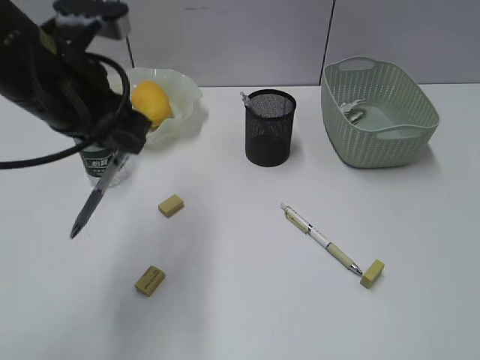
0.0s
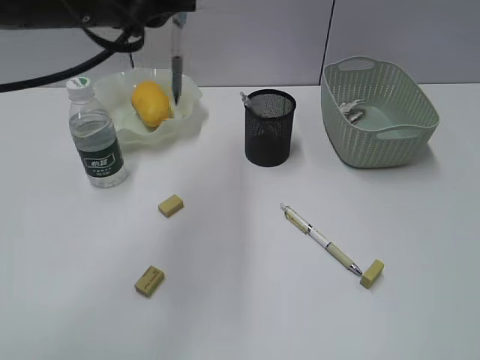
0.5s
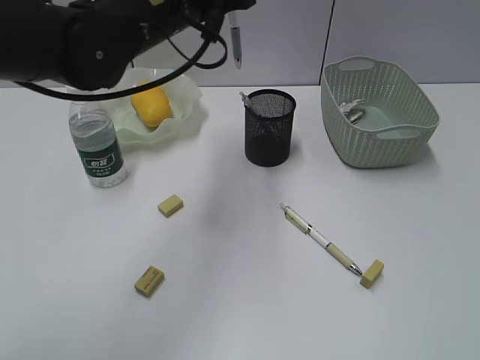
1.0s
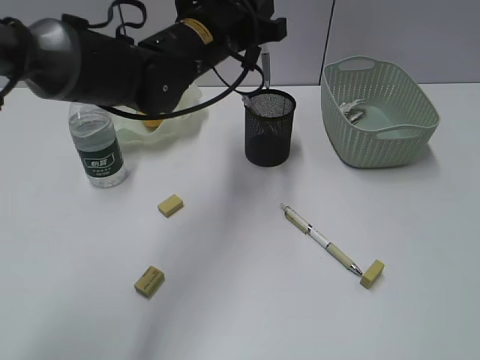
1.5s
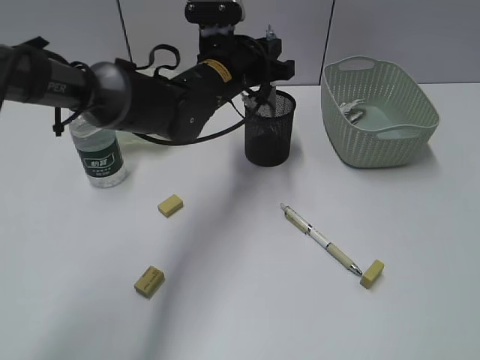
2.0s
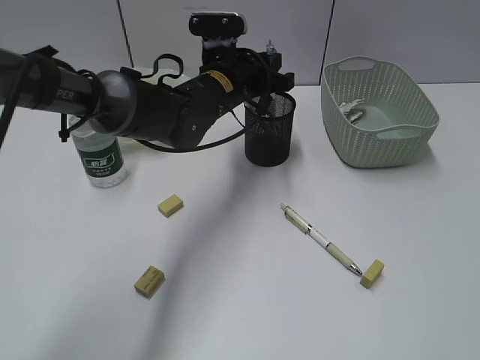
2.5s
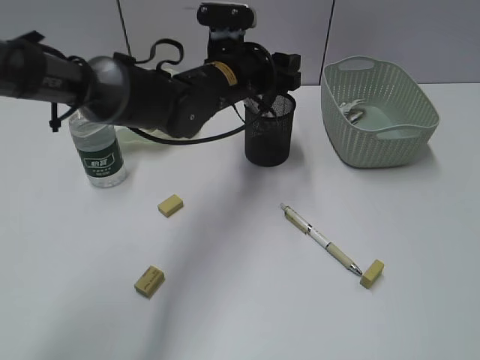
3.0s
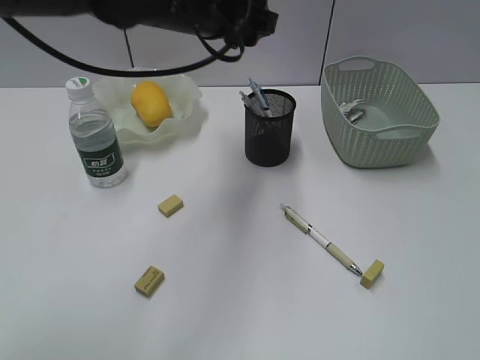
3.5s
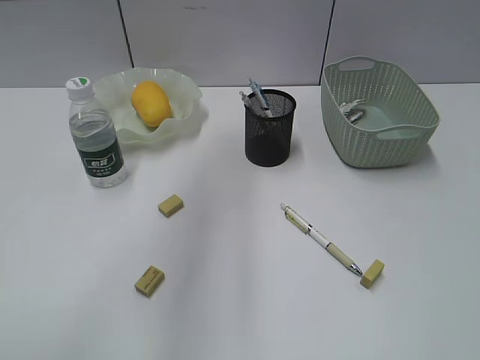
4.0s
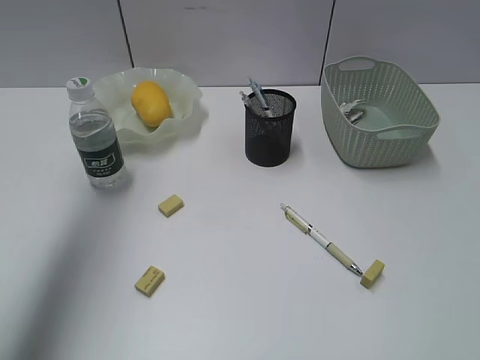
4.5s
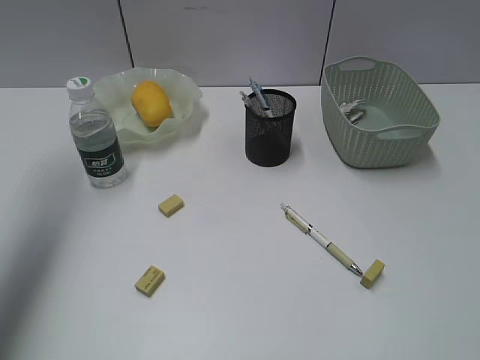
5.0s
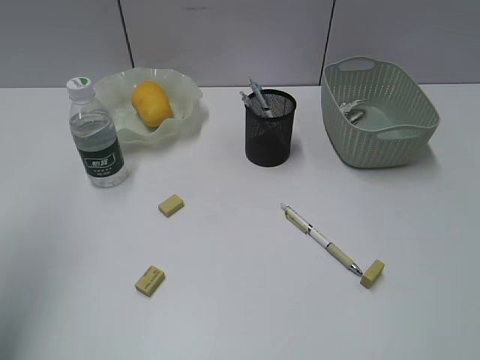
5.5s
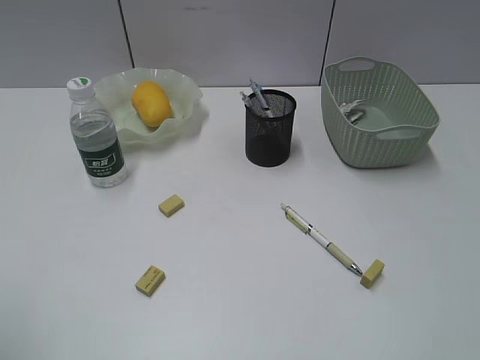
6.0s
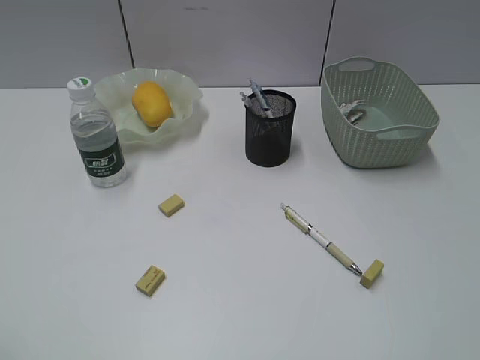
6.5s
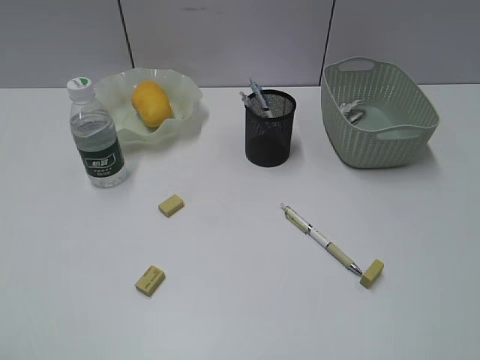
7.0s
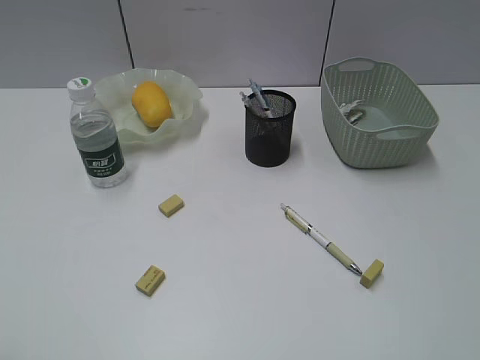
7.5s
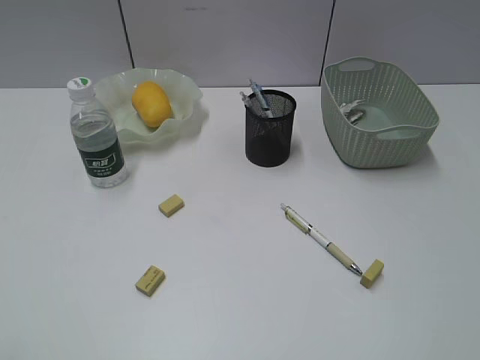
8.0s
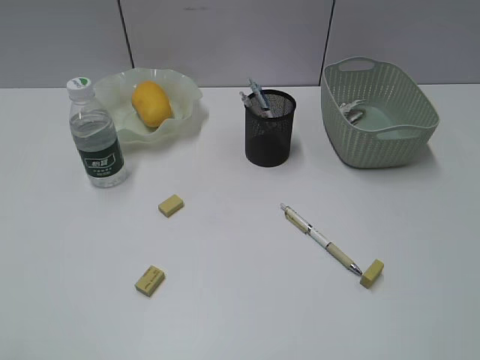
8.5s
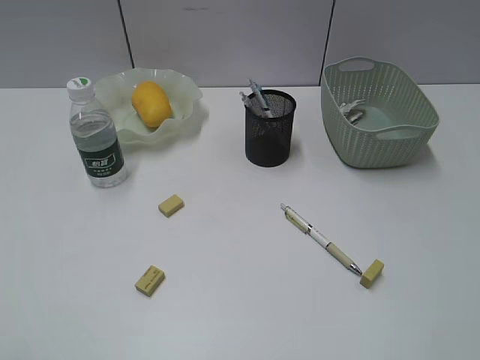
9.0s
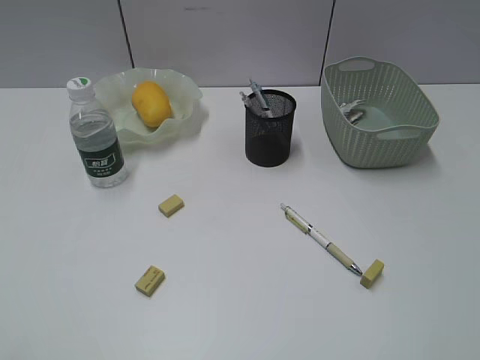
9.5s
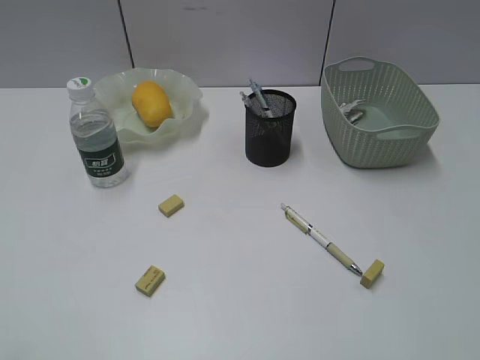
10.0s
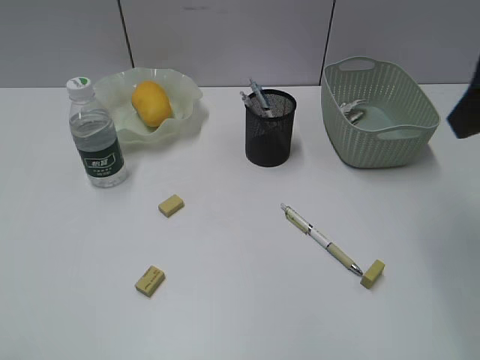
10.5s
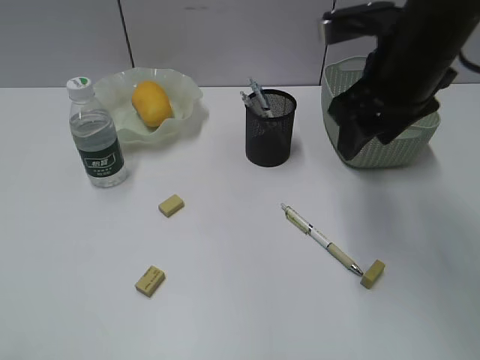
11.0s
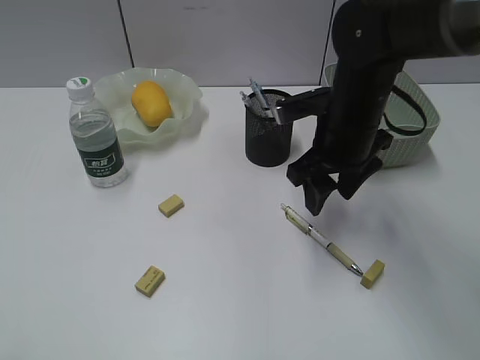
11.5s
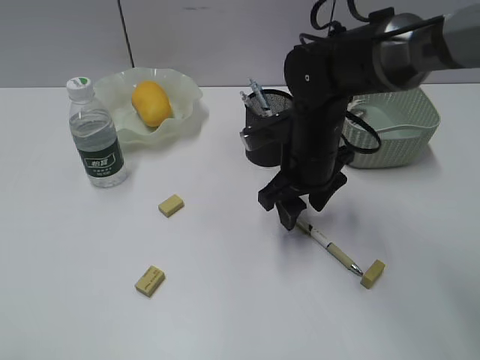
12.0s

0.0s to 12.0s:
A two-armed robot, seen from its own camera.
Step, 0.0s to 2.5s: Place the blue pen in pen holder with left gripper.
0.0s to 2.0s: The left gripper is displaced forward, to the right and downward by about 20 cm.
2.0s to 4.0s: The left gripper is displaced upward, backward and to the left by approximately 25 cm, and opens.
4.0s to 6.0s: The left gripper shifts approximately 30 cm backward and to the left.
10.0s to 12.0s: The right gripper shifts some 40 cm forward, downward and to the left.

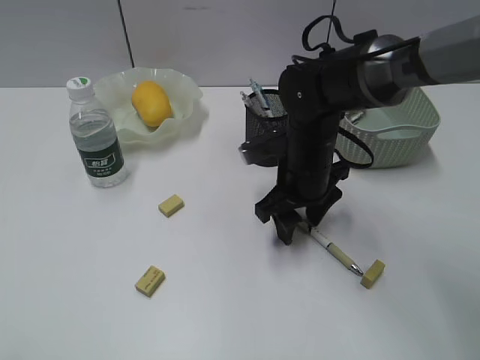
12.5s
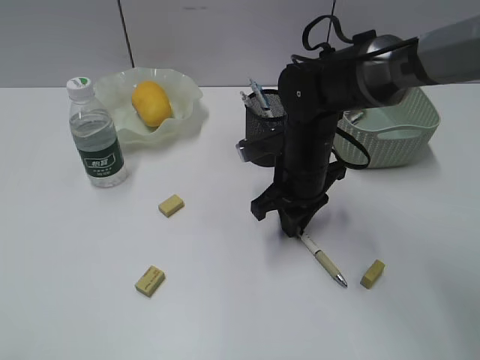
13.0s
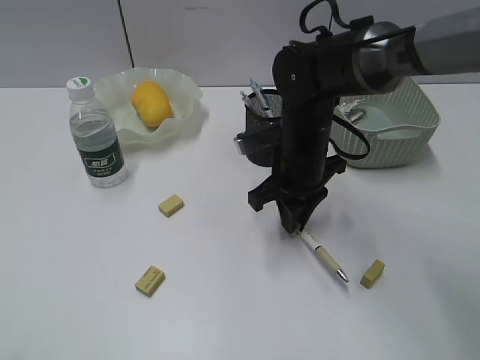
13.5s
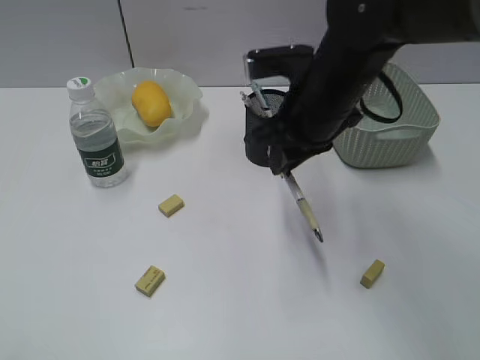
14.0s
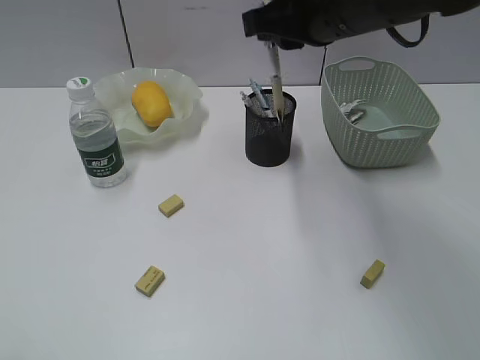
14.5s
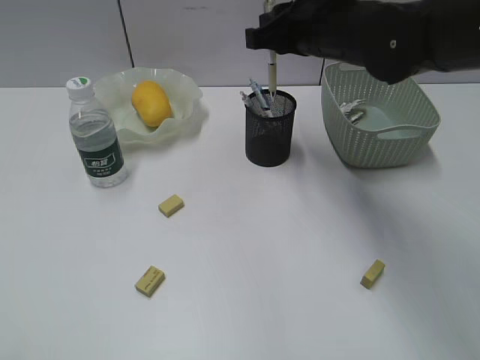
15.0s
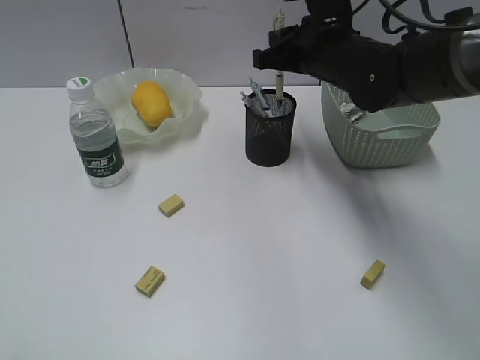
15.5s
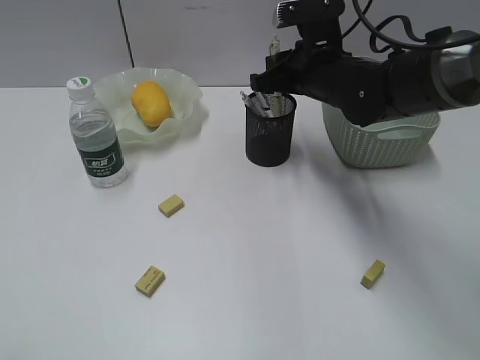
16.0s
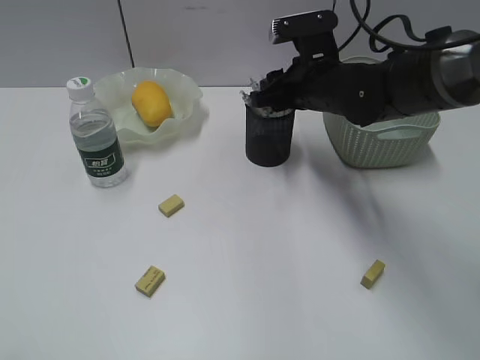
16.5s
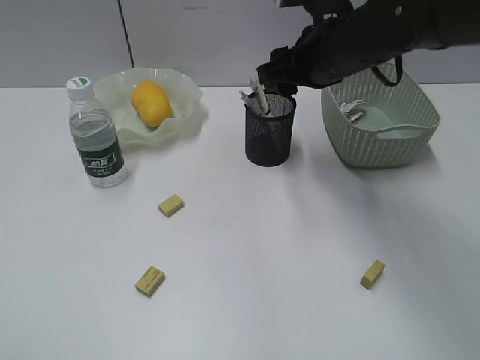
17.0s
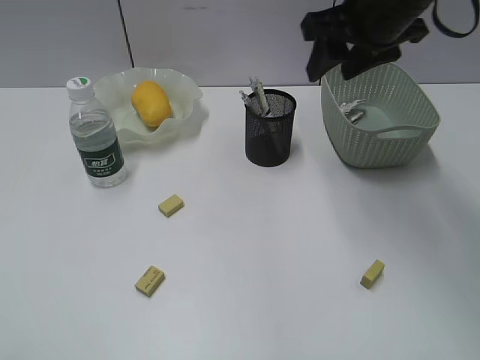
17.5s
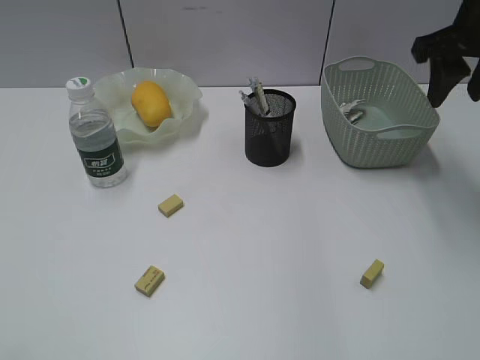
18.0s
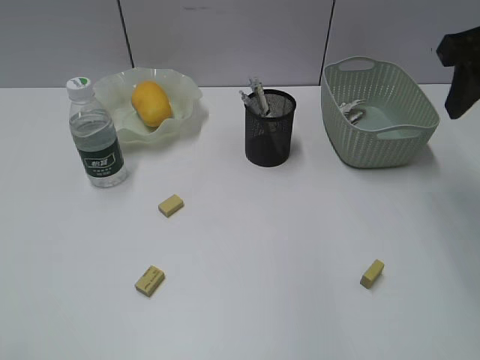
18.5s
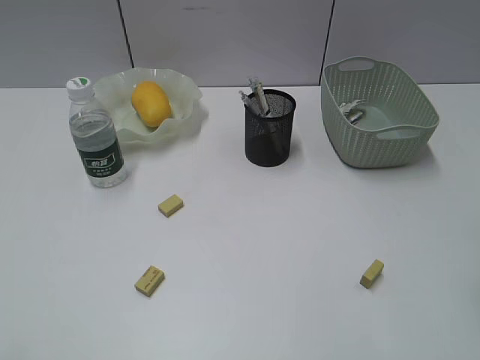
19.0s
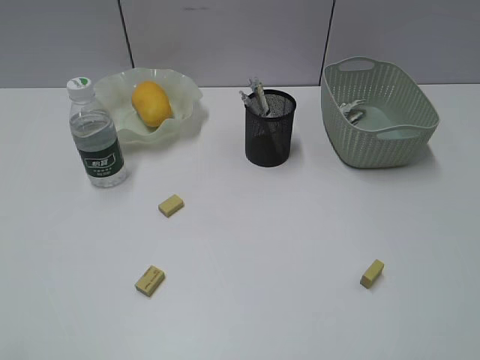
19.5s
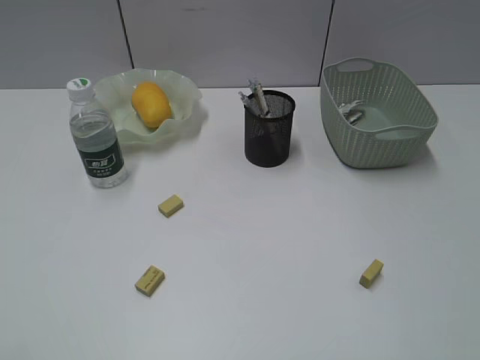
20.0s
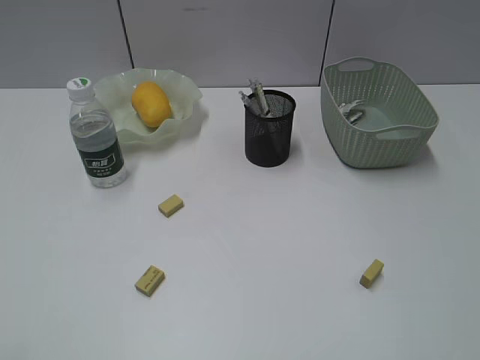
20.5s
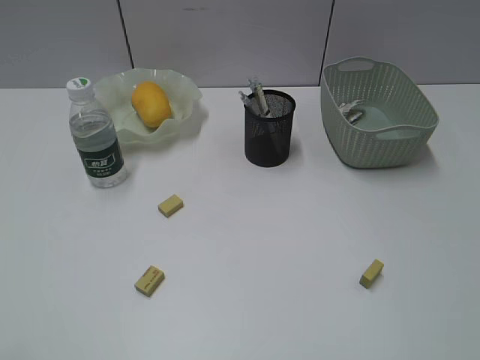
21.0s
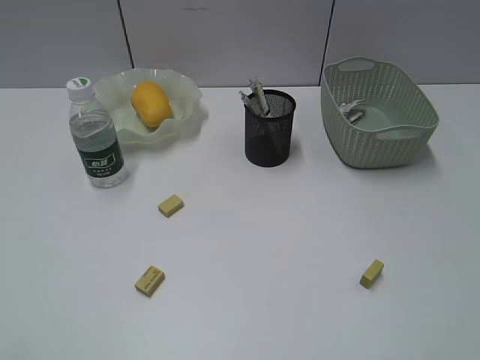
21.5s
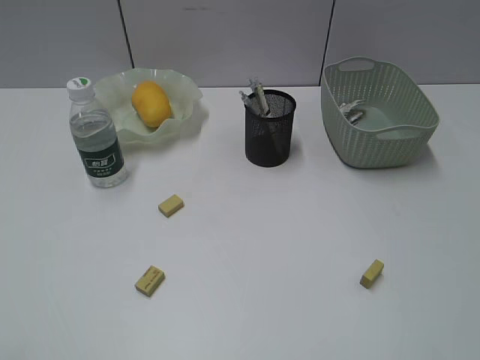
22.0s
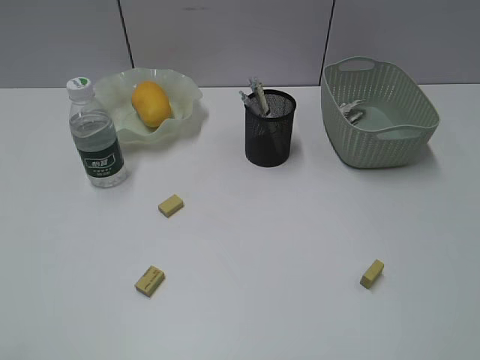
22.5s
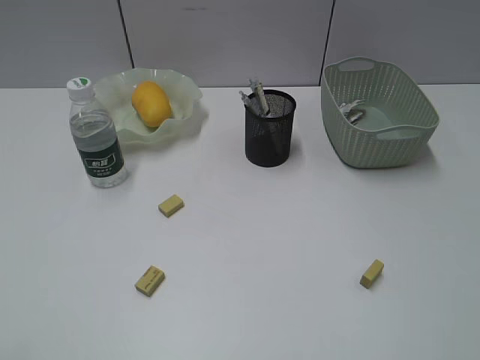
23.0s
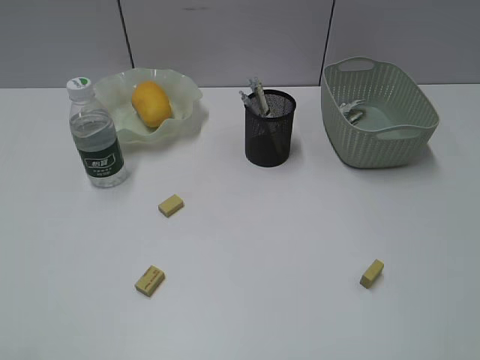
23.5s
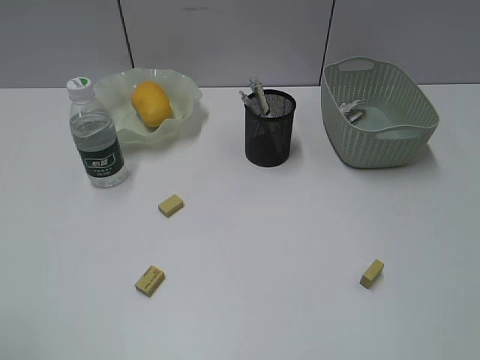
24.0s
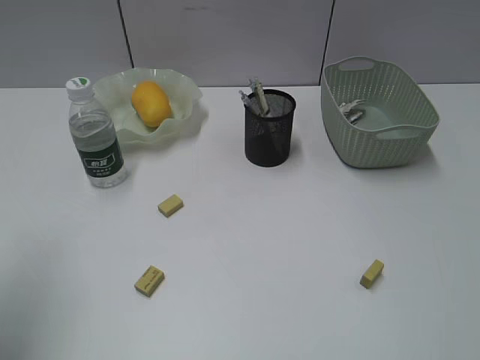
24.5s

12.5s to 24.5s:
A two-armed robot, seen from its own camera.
Step, 13.5s to 16.5s: Place the yellow pen in pen holder with right gripper.
12.5s to 14.5s: The right gripper moves upward, about 20 cm, and closes.
14.5s to 16.5s: The right gripper is displaced downward and forward by roughly 15 cm.
16.5s to 18.5s: The right gripper shifts roughly 20 cm upward, to the right and backward.
18.5s to 20.5s: The right gripper goes some 35 cm backward.
22.5s to 24.5s: The left gripper heads forward, covering approximately 15 cm.

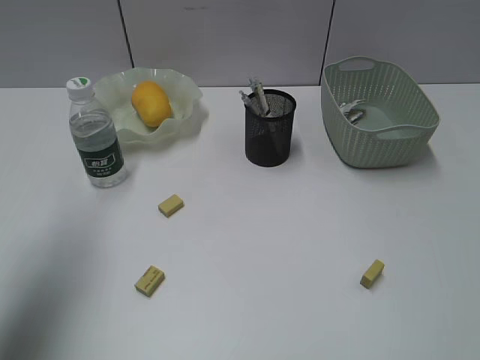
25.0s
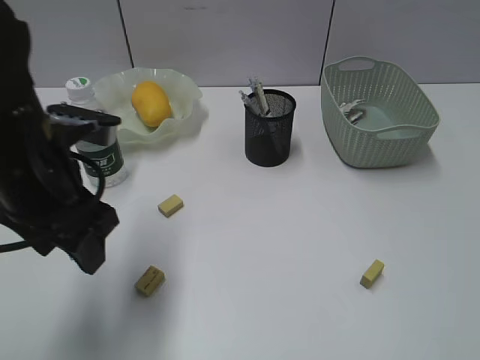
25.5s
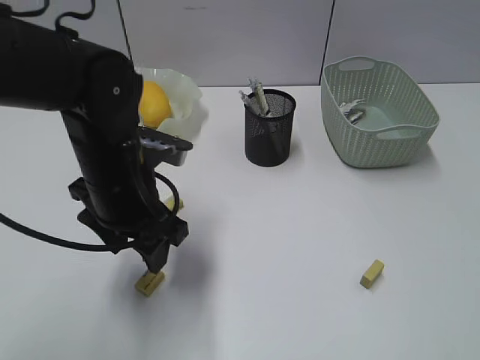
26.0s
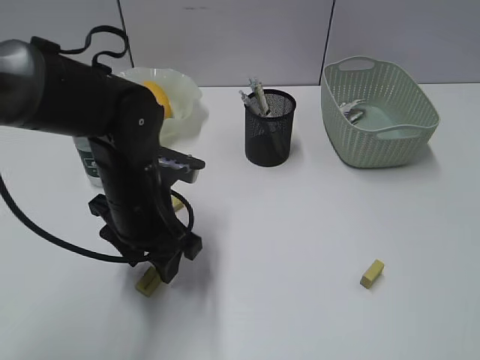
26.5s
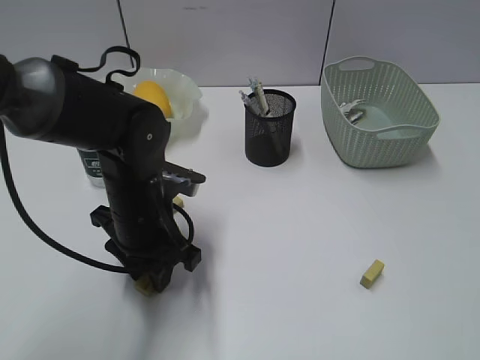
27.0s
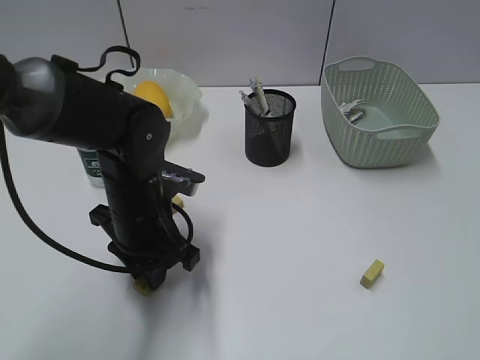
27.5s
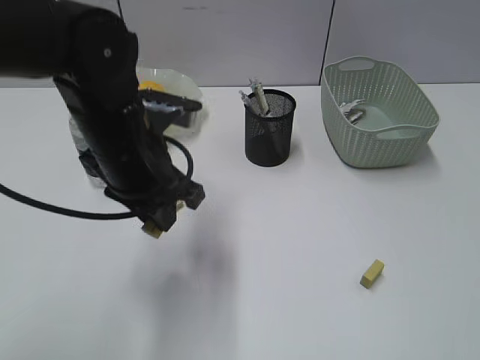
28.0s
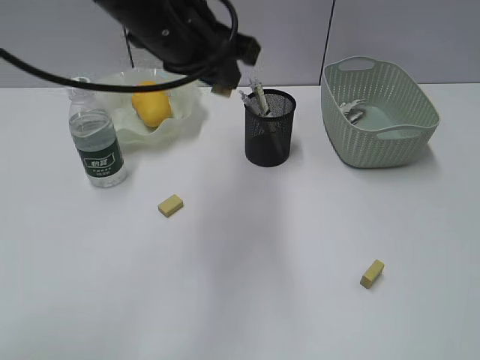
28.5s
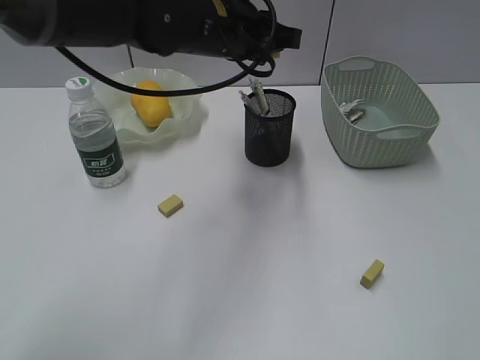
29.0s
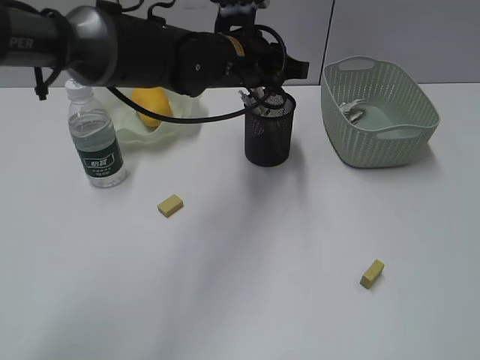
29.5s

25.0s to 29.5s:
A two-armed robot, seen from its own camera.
Step, 25.0s to 27.5s: Grasp the eraser with left gripper.
25.0s to 27.0s: The left gripper travels to the right and downward by about 25 cm.
27.0s to 29.5s: The left gripper heads forward, upward and to the right, covering about 20 cm.
